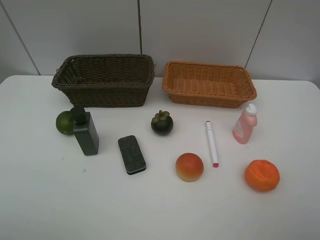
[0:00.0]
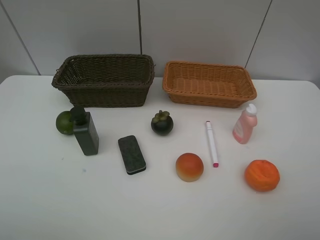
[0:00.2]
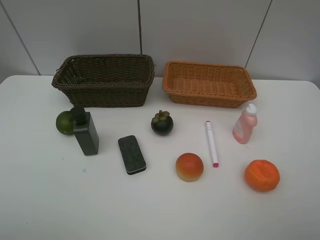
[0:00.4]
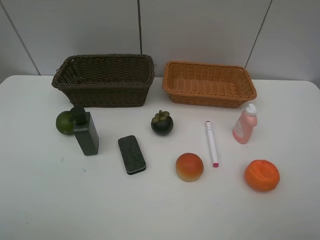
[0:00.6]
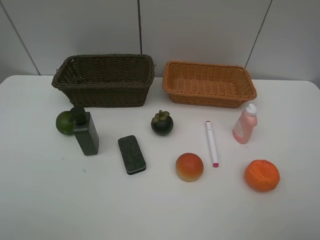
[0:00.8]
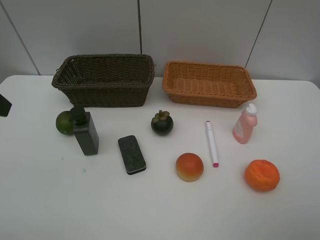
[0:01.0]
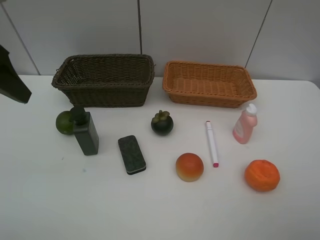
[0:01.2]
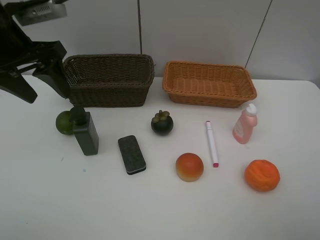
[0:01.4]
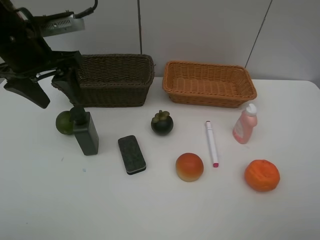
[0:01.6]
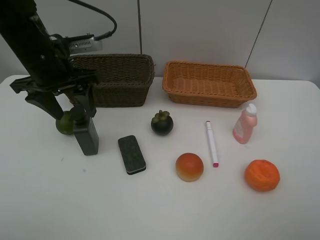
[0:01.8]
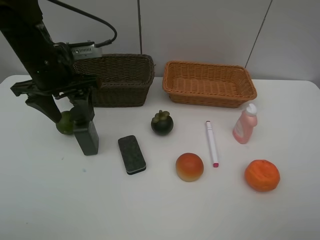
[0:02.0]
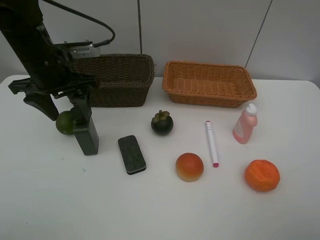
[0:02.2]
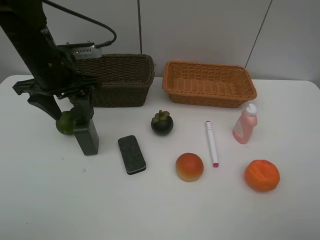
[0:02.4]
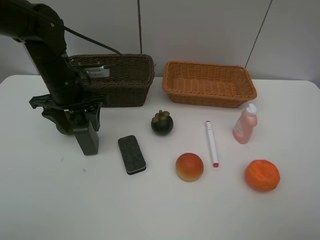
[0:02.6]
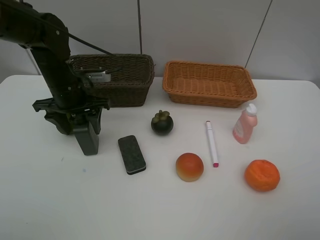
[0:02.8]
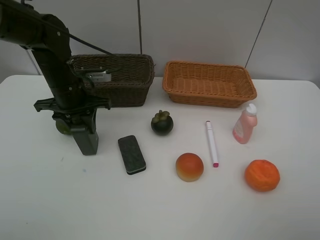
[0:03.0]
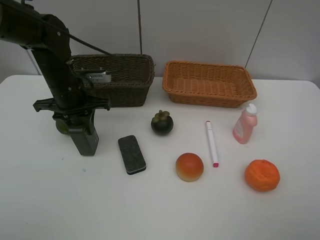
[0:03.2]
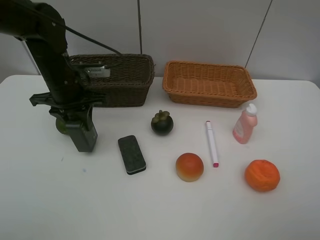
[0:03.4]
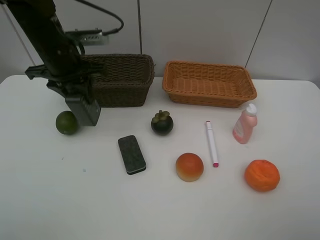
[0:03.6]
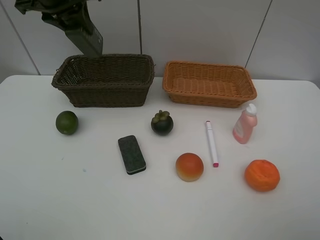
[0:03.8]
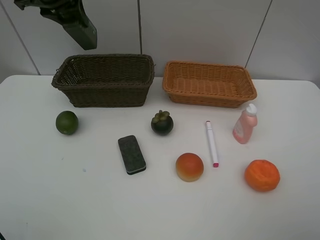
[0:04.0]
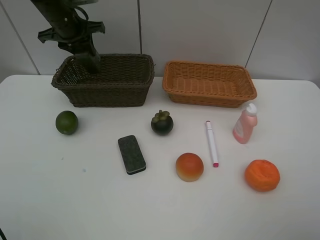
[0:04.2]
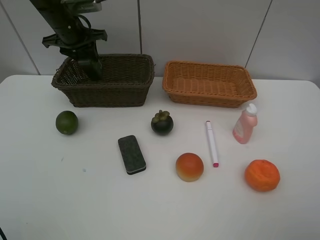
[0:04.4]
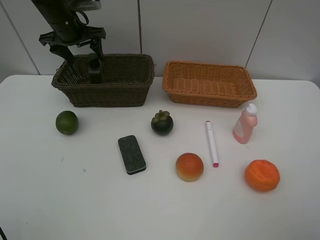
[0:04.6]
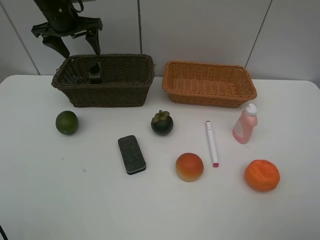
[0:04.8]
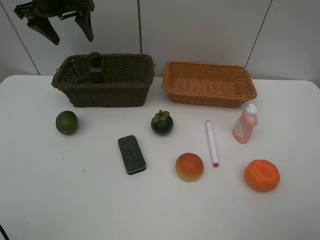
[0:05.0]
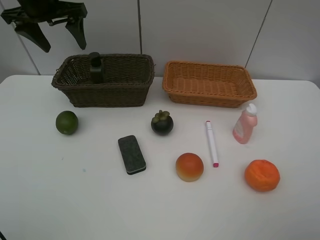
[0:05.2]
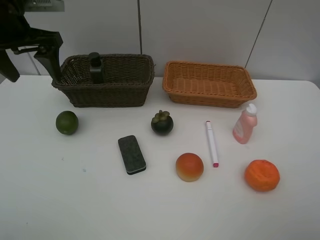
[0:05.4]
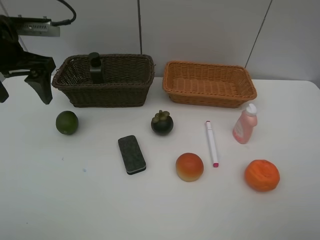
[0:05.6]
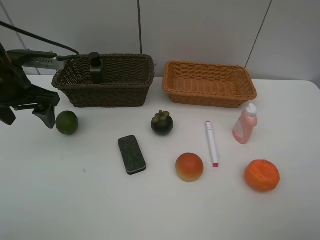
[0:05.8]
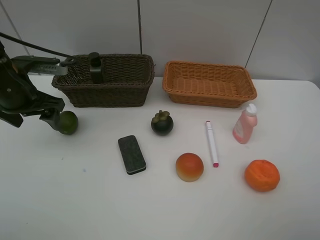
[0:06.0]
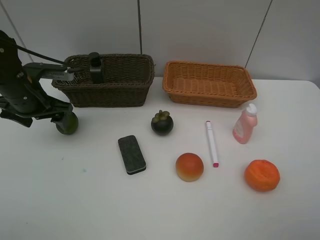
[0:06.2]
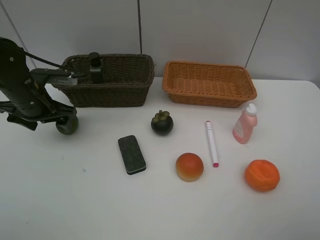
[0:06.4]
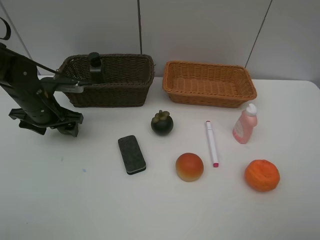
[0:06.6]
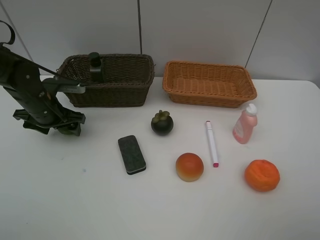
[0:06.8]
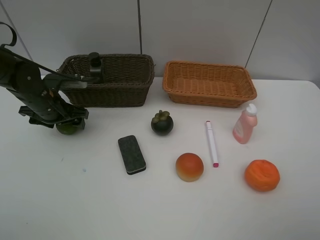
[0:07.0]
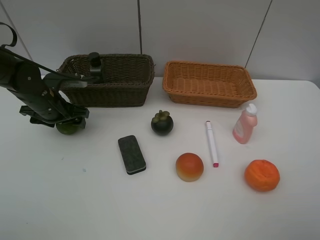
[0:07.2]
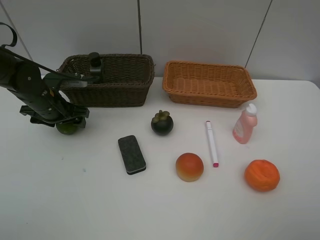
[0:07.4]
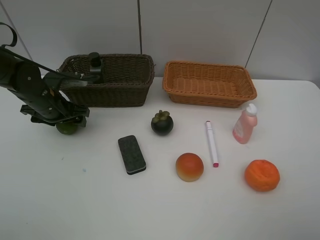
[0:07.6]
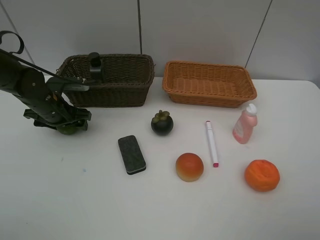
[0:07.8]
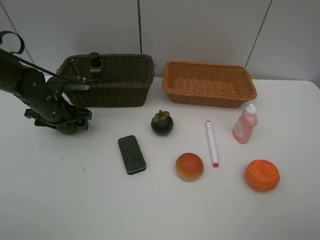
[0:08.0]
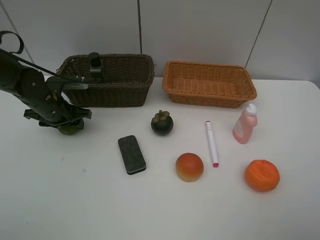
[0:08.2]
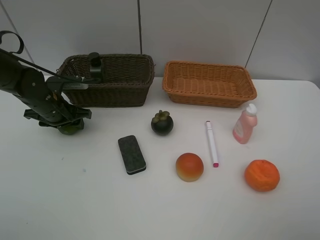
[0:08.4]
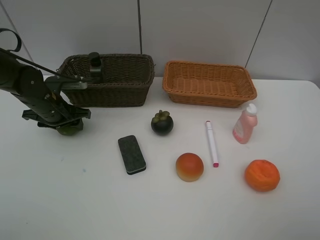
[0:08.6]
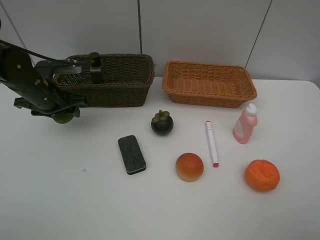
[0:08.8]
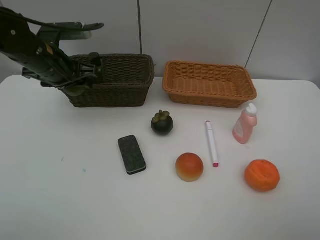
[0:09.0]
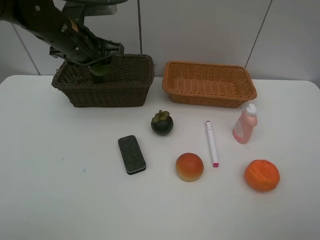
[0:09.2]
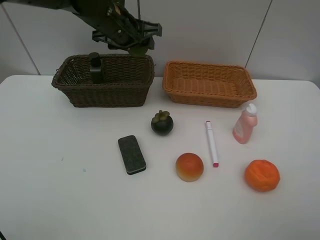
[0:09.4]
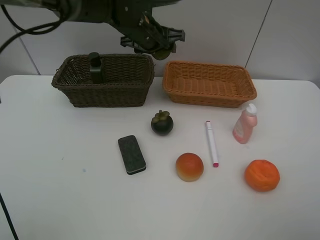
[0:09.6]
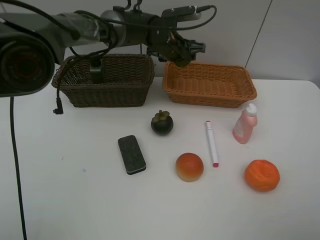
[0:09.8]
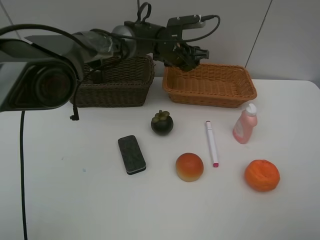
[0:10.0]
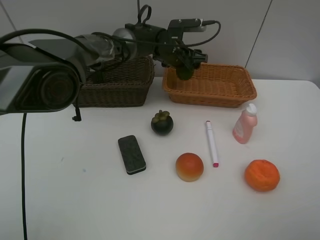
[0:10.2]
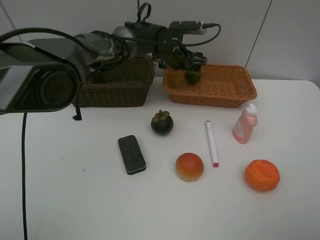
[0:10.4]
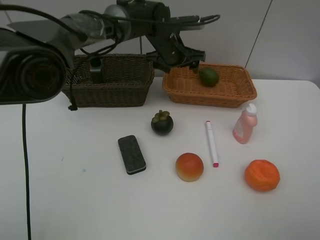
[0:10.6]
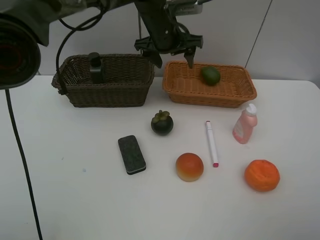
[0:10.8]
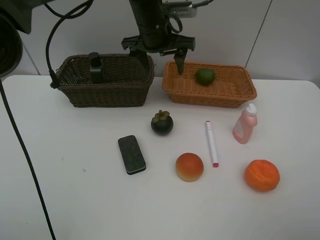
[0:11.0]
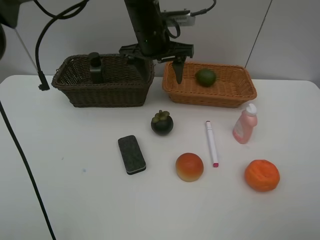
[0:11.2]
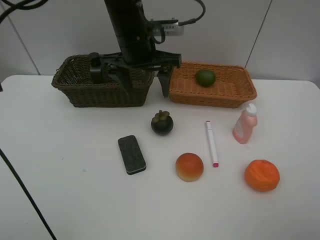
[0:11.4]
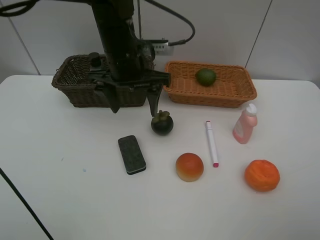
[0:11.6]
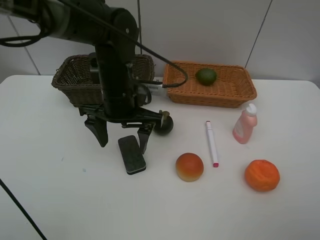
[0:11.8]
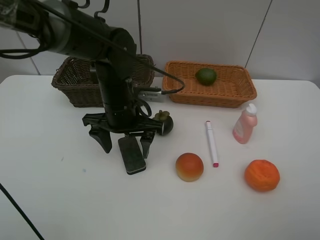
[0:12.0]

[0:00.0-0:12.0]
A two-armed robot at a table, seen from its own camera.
Task of the whole recording: Place multiple objects separately in different baskets.
Step, 0:00.0 to 0:03.4: Pick up the hard facial cleanser with left gripper.
Step, 0:03.6 to 0:04.6: Place the hard facial cleanser in the dark basket with left gripper.
Step, 0:04.8 to 0:08.8: Pick up the lime with left gripper.
Step, 0:09.0 to 0:10.4: Place the lime in the light basket with left gripper.
0:00.0 to 0:01.6: The left gripper heads forward, covering roughly 30 cm.
0:01.6 to 0:03.0: The left gripper shifts about 10 cm downward, and closes up.
0:03.0 to 0:04.4: The left gripper travels forward and upward by roughly 15 cm, and opens its fingers.
0:04.4 to 0:06.0: The left gripper shifts approximately 20 cm backward, and opens its fingers.
0:06.0 to 0:07.6: The left gripper shifts approximately 10 cm downward.
0:07.6 to 0:09.0: The left gripper travels upward and to the right by some 10 cm, and closes its fingers.
0:09.0 to 0:10.4: The left gripper goes approximately 25 cm to the right and forward, and opens up.
0:10.4 to 0:12.0: The left gripper shifts approximately 20 cm backward and to the left.

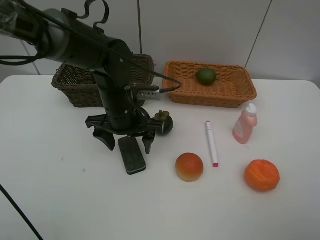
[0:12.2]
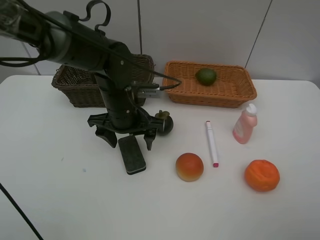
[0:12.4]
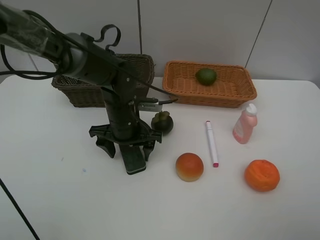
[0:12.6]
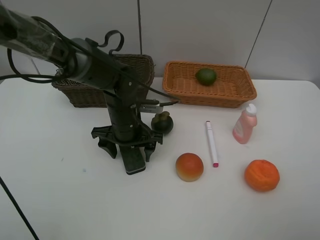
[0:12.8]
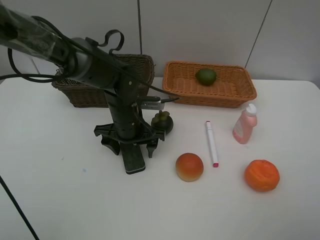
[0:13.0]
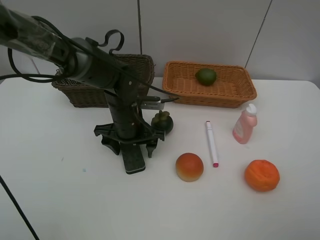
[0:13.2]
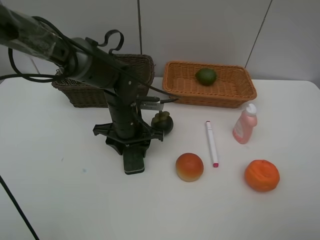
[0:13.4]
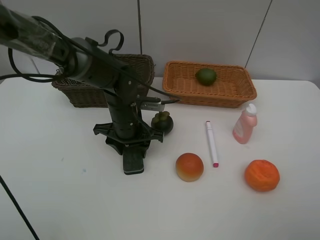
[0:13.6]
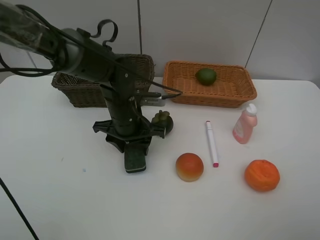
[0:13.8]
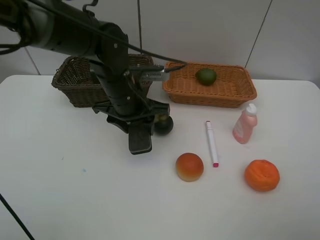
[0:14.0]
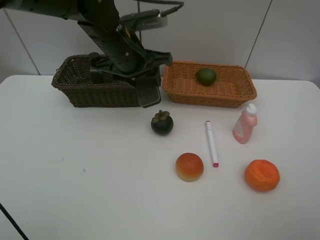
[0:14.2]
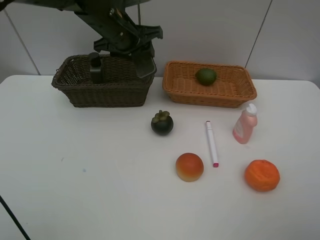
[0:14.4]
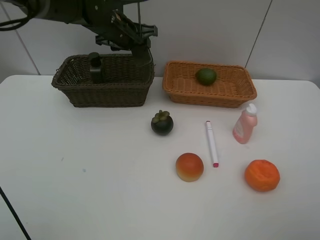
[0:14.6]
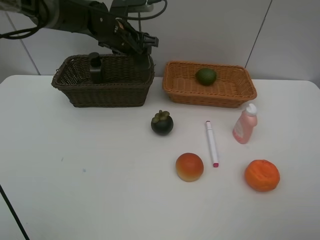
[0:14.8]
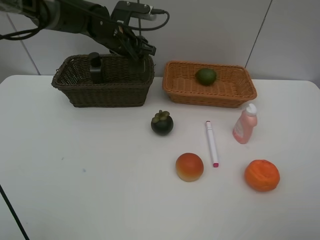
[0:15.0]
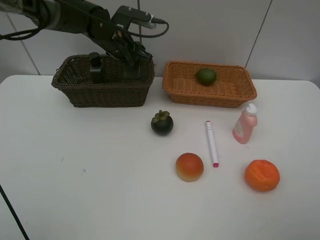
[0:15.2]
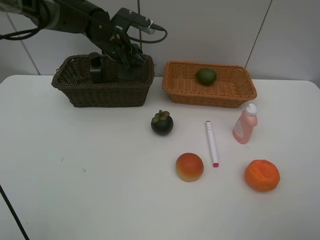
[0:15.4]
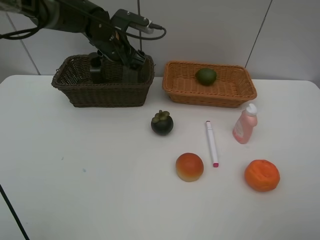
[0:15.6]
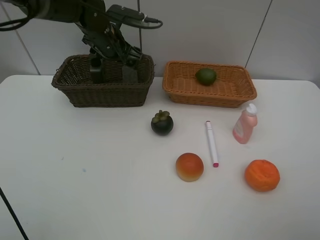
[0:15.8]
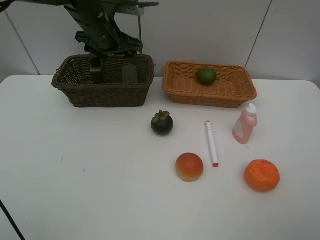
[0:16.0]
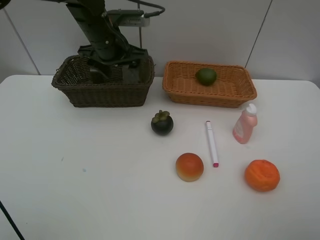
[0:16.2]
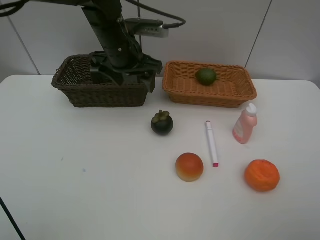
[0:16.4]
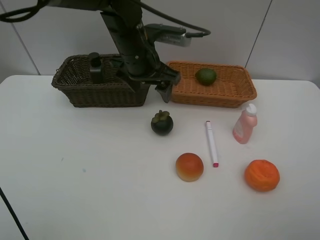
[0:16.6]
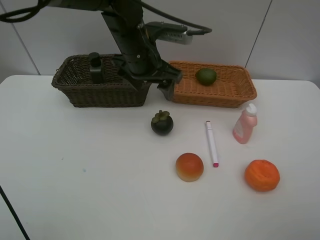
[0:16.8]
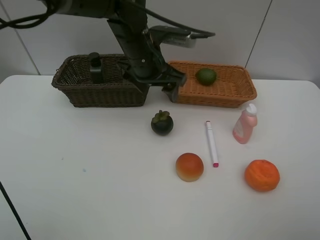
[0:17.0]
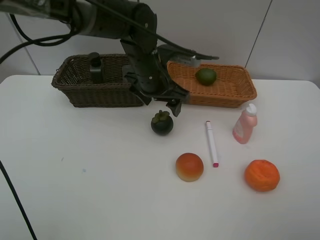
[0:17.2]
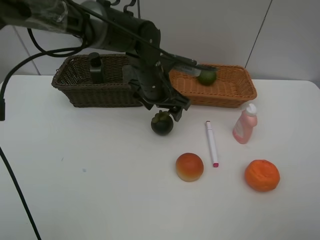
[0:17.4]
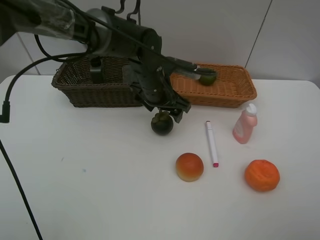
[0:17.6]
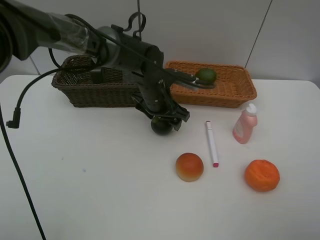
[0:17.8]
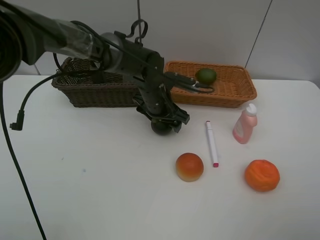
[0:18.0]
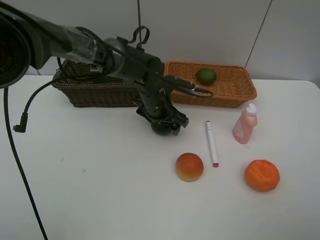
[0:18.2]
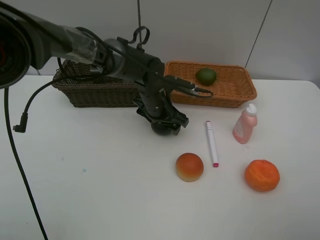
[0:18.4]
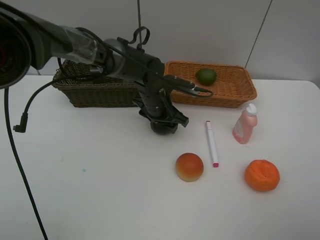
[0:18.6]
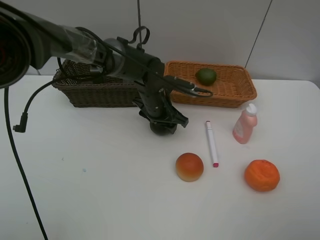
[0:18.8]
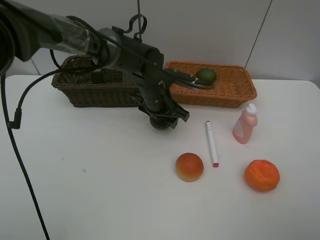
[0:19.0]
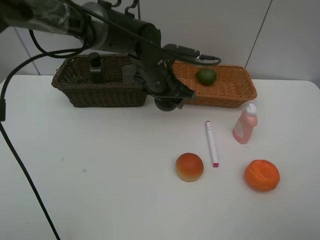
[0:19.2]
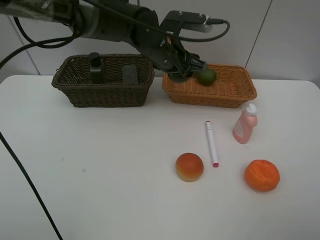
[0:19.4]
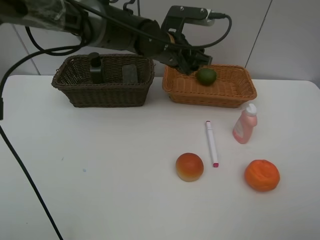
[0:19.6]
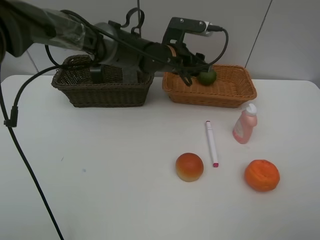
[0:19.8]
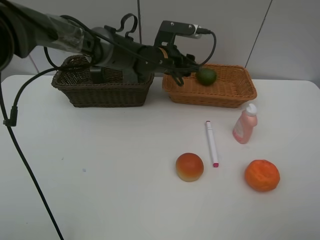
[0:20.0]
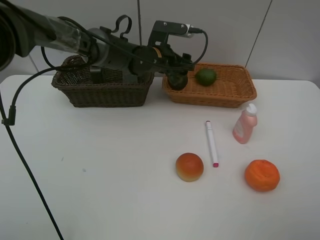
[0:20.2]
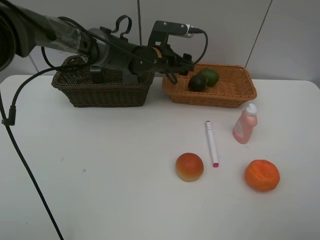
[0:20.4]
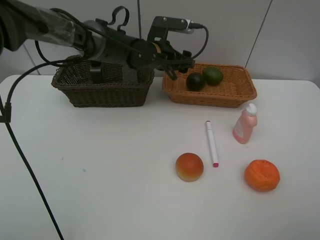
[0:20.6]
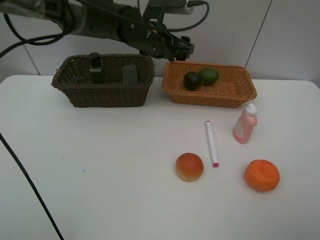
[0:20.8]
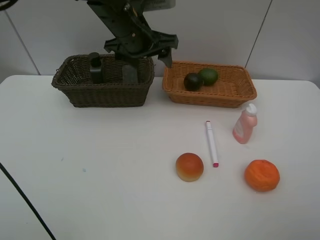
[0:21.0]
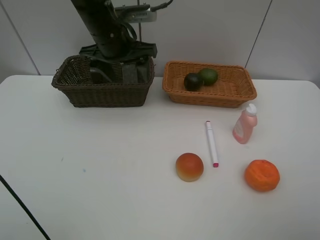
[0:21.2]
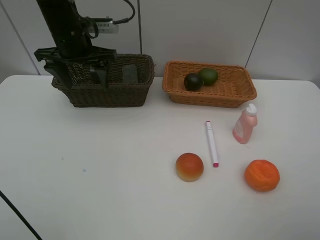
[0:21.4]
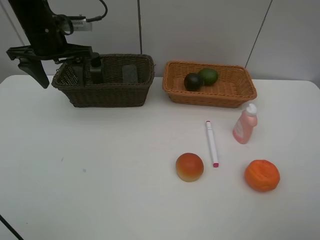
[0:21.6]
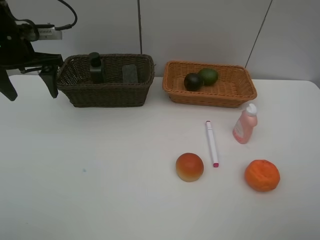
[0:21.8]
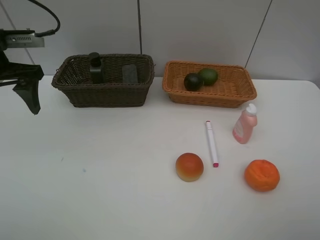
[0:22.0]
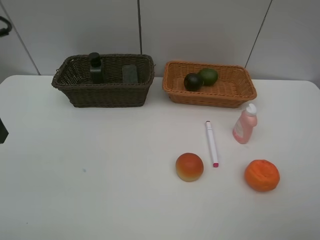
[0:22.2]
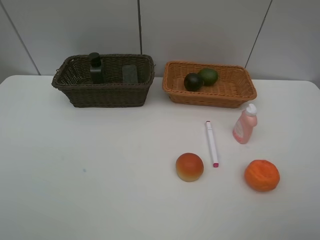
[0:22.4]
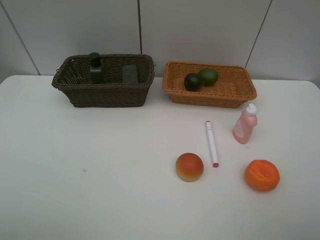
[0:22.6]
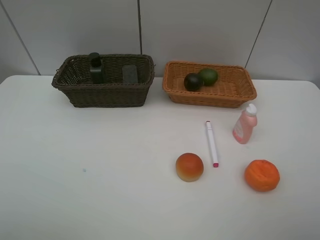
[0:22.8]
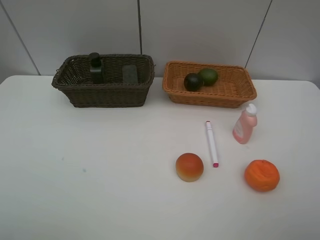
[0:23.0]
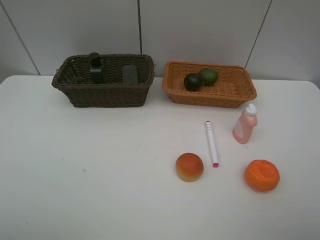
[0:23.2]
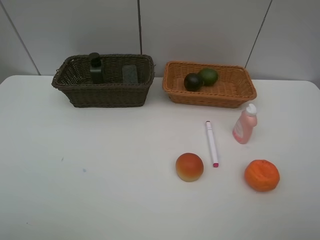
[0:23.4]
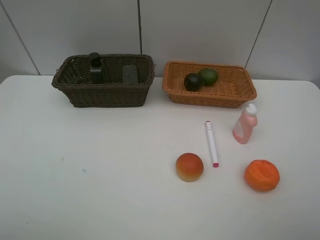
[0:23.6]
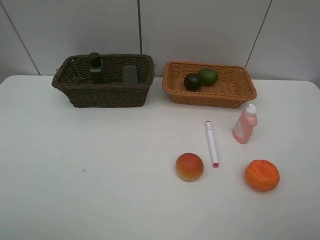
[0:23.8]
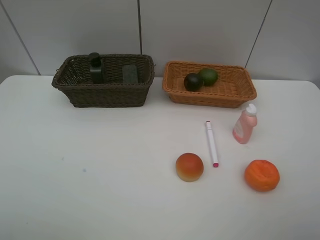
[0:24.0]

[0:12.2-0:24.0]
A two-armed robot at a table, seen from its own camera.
Task of the whole recording: Place multiple objects separately in different baskets.
Step, 0:14.0 to 0:16.0: Place the blackboard eraser in the dark basket with left gripper.
Step, 0:16.2 to 0:19.0: Pick up the mangosteen with left gripper.
Step, 0:19.2 to 0:20.4: Place the mangosteen in the light basket with left gripper.
0:12.2 to 0:13.6: The left gripper closes up.
0:13.6 to 0:15.2: The left gripper goes approximately 20 cm forward and upward.
0:15.2 to 0:16.6: The left gripper travels backward and to the right by roughly 10 cm, and opens.
0:16.6 to 0:18.2: The left gripper goes approximately 15 cm downward.
0:18.2 to 0:19.6: The left gripper shifts about 10 cm upward, and closes.
0:19.6 to 0:21.0: The left gripper moves to the left and upward, approximately 10 cm, and opens up.
0:21.0 to 0:22.6: The left gripper shifts roughly 40 cm backward and to the left.
